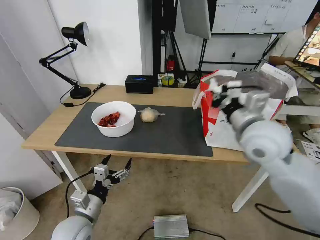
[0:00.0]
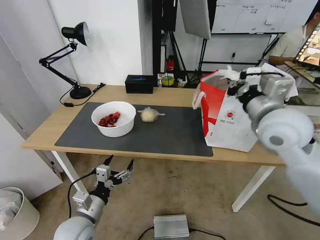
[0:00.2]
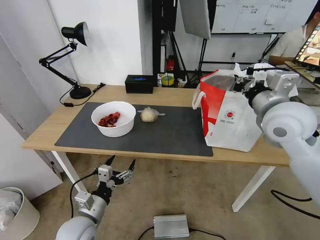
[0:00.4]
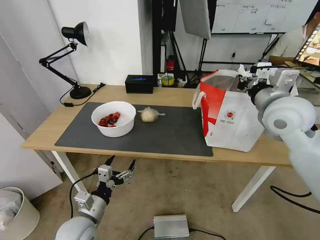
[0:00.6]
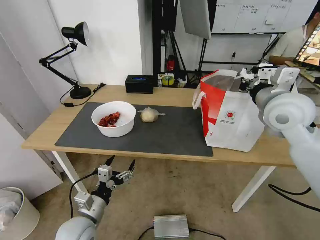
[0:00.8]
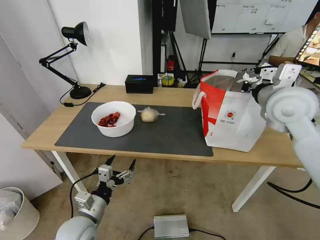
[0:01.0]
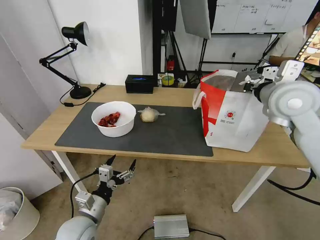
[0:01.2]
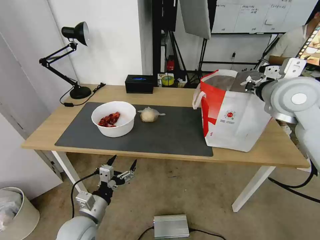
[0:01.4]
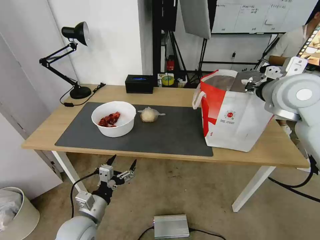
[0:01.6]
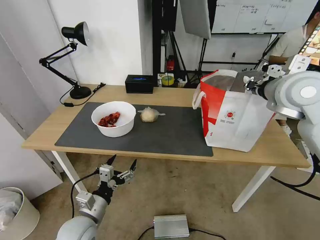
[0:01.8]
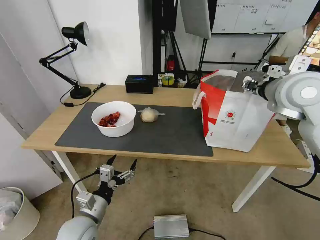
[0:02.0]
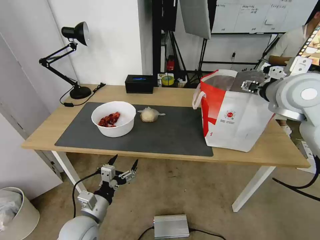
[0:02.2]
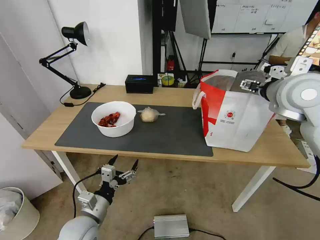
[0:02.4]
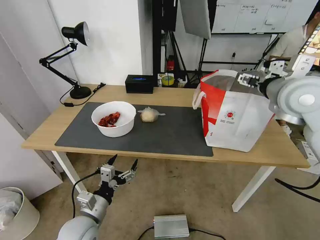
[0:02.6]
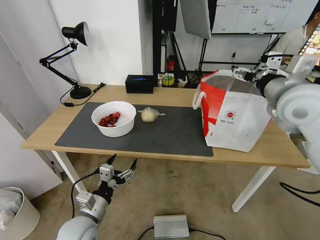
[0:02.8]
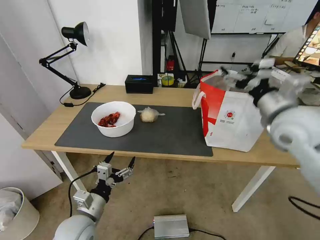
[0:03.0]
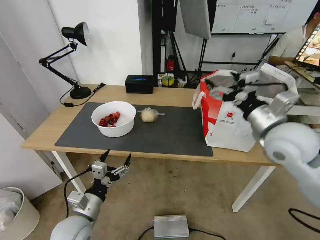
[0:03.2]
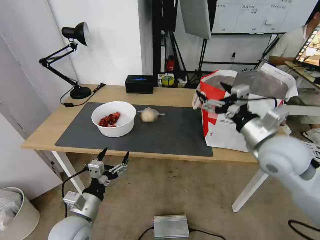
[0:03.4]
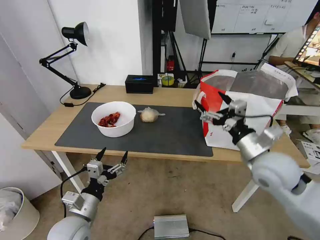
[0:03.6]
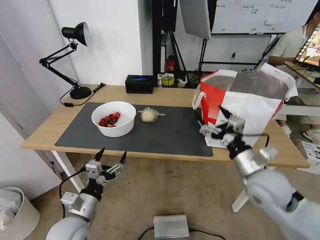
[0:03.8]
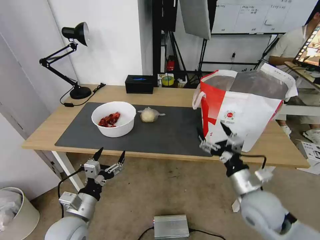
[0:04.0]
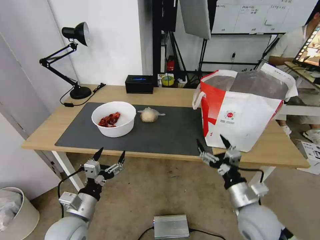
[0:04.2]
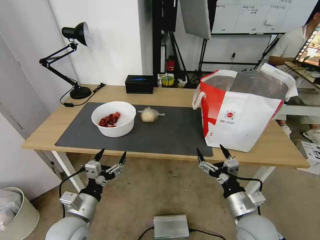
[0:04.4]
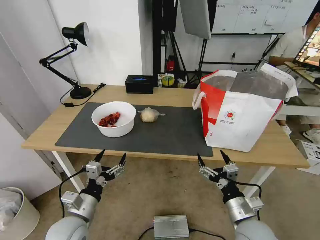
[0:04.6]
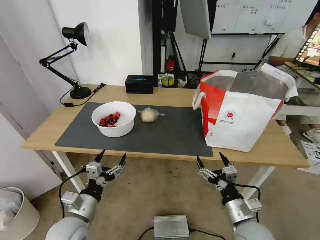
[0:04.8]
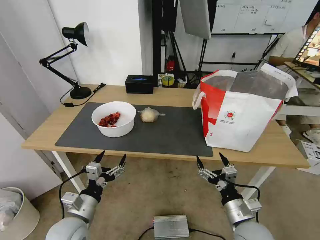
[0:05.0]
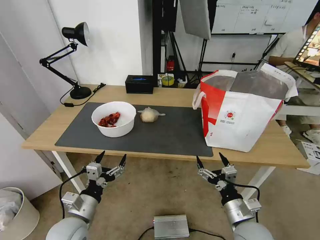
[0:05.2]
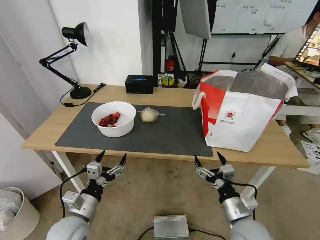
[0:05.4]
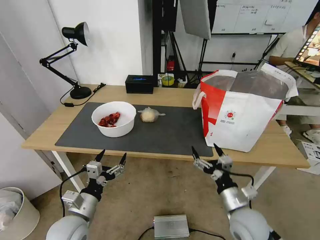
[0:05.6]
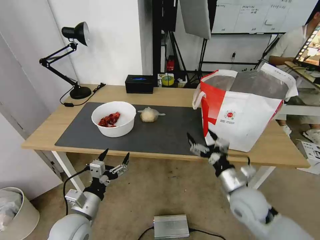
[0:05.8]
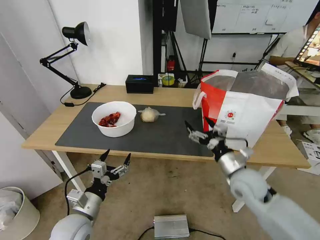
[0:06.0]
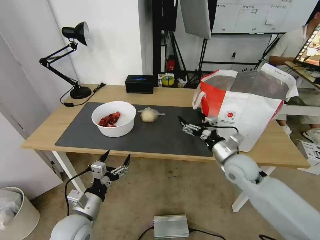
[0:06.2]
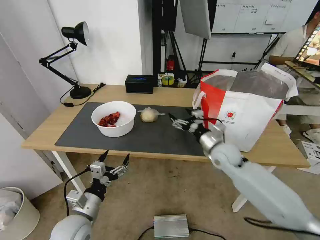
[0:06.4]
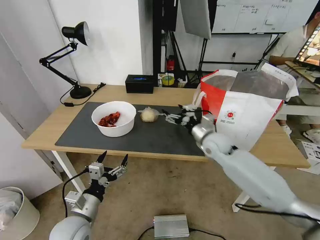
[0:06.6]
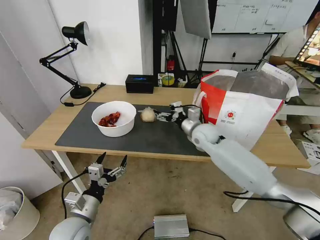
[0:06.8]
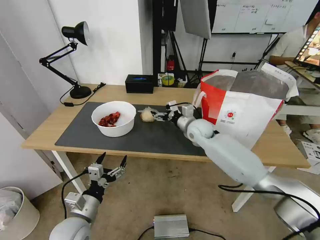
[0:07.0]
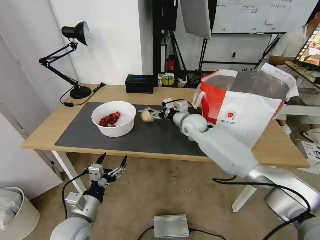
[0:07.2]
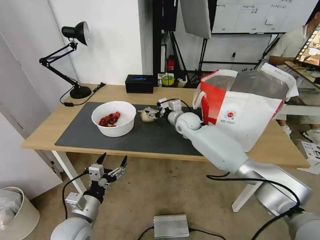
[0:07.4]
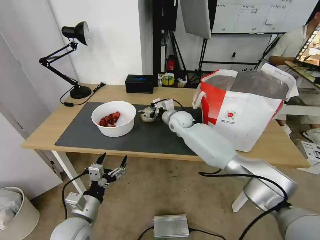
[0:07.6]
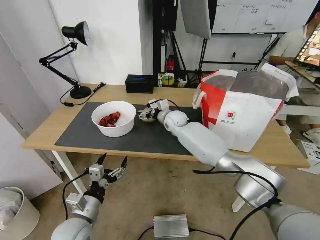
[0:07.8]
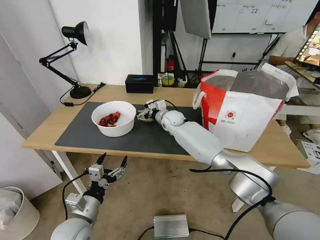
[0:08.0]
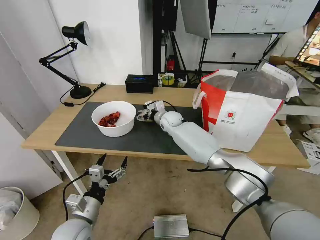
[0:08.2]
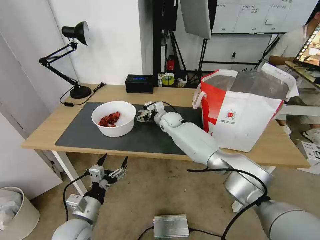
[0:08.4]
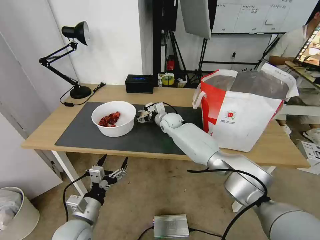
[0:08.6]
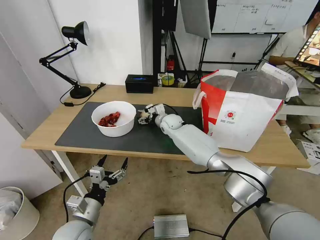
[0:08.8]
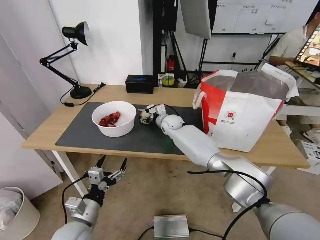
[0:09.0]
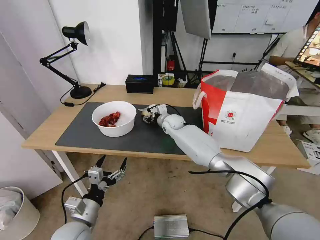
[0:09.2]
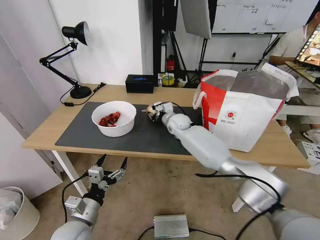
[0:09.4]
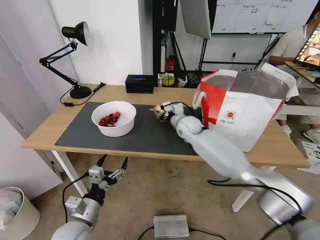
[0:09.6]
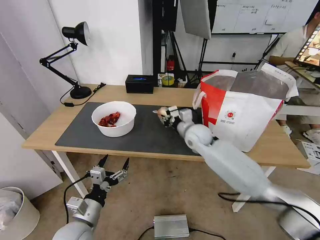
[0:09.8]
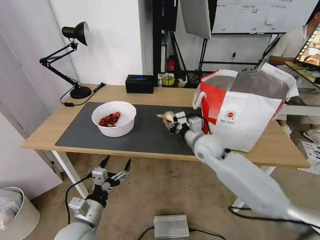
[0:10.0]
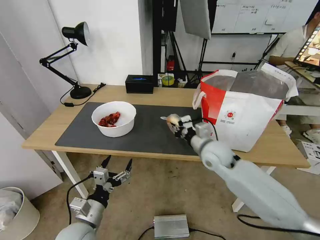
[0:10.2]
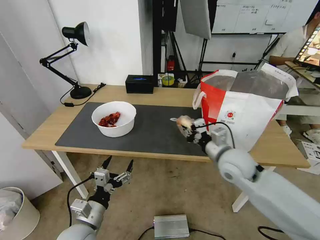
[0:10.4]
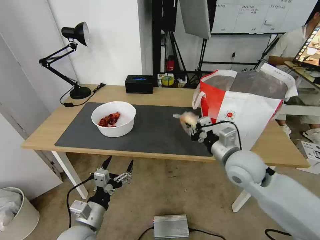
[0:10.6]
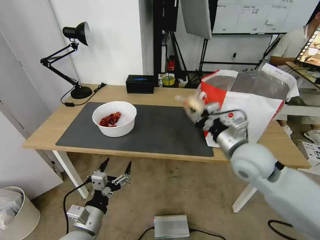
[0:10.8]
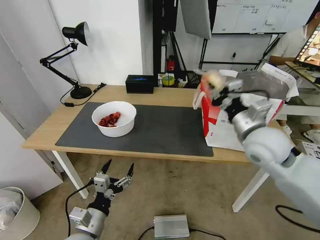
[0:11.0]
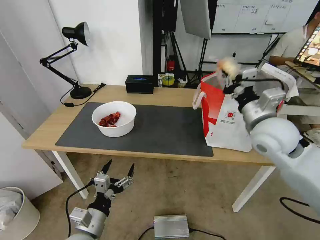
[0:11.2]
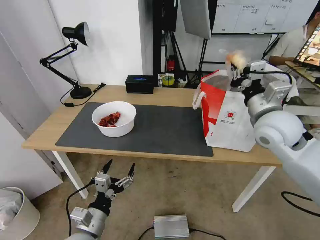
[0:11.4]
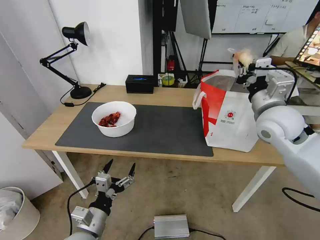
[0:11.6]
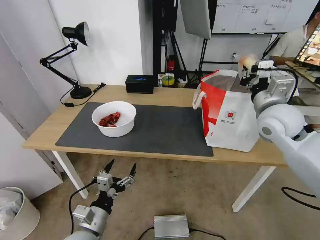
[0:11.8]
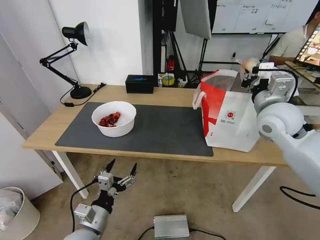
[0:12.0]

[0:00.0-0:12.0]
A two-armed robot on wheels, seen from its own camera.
Task of the whole recording: Pick up the trash from the table and place it into the takeout bag.
0:00.0 to 0:01.6: The right gripper shifts approximately 15 cm forward, to the right and upward.
0:01.6 to 0:03.0: The right gripper heads backward, covering about 5 cm, and opens up.
0:03.0 to 0:04.4: The right gripper heads downward and backward, covering approximately 30 cm.
0:04.4 to 0:06.0: The right gripper is displaced forward and upward by some 15 cm.
0:06.0 to 0:07.6: The right gripper is displaced forward and to the left by some 30 cm.
0:07.6 to 0:09.0: The right gripper ends up approximately 5 cm from where it was.
0:09.0 to 0:10.4: The right gripper travels backward and to the right by approximately 30 cm, and closes up.
0:10.4 to 0:12.0: The right gripper goes some 15 cm upward, to the right and forward.

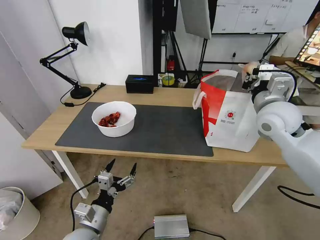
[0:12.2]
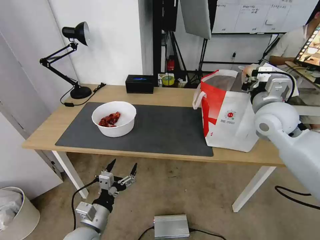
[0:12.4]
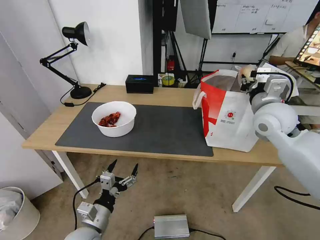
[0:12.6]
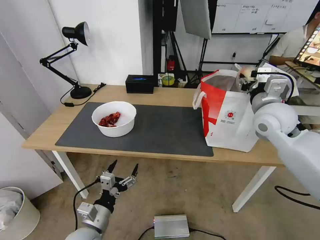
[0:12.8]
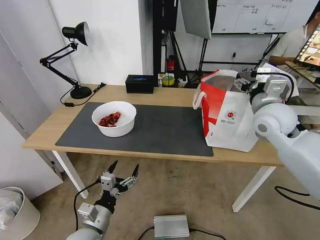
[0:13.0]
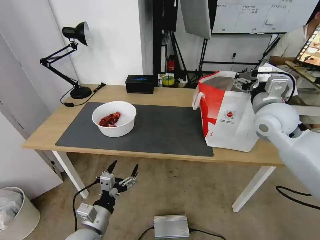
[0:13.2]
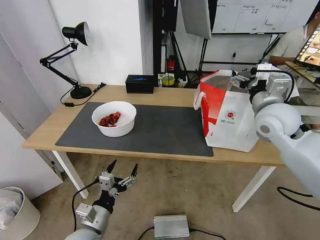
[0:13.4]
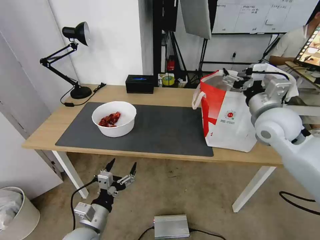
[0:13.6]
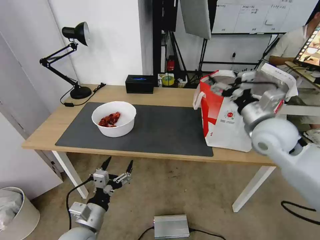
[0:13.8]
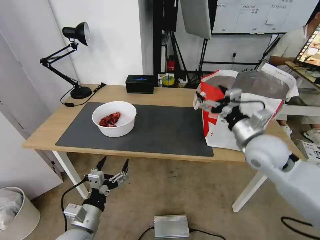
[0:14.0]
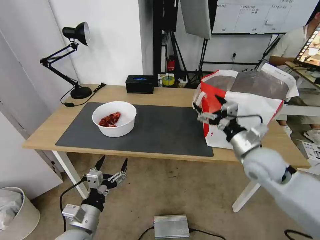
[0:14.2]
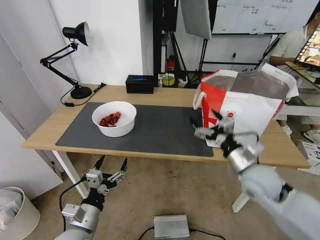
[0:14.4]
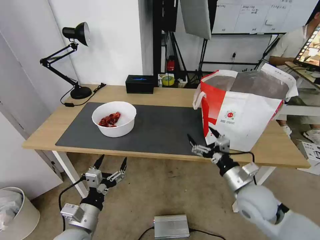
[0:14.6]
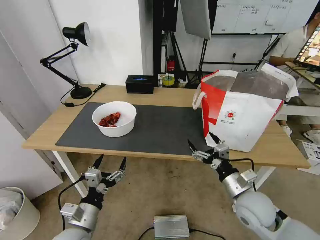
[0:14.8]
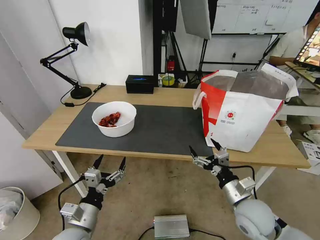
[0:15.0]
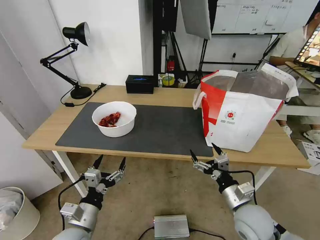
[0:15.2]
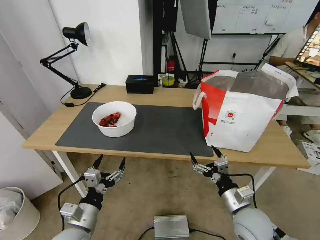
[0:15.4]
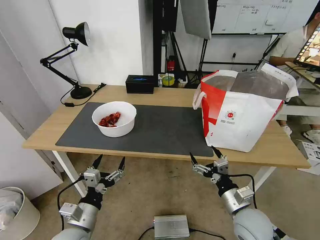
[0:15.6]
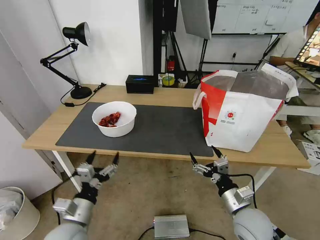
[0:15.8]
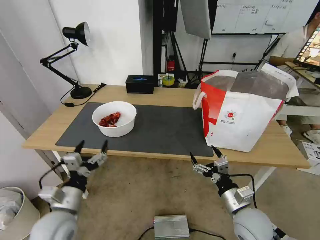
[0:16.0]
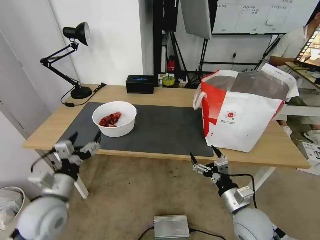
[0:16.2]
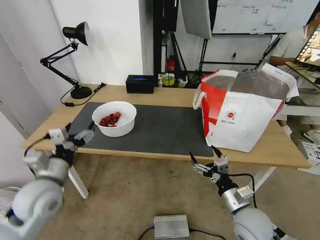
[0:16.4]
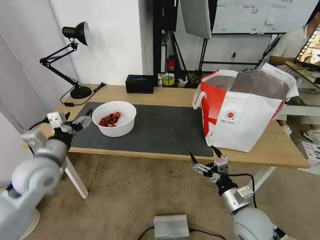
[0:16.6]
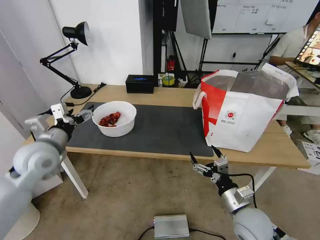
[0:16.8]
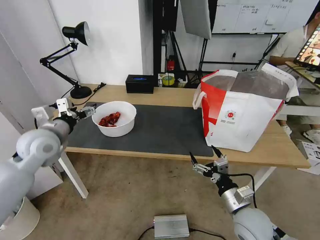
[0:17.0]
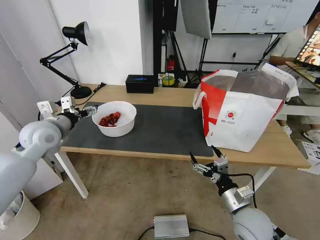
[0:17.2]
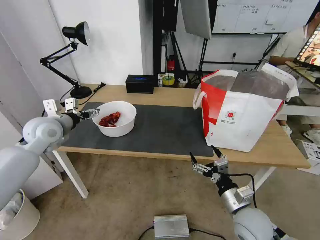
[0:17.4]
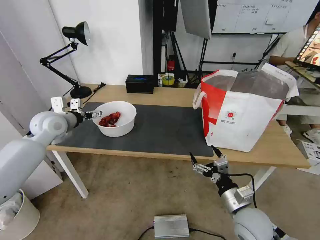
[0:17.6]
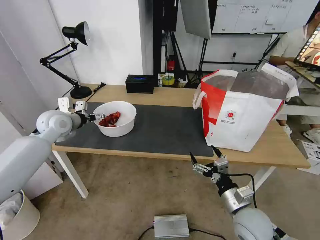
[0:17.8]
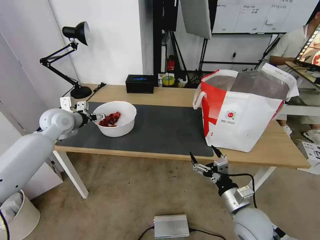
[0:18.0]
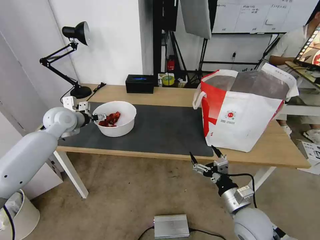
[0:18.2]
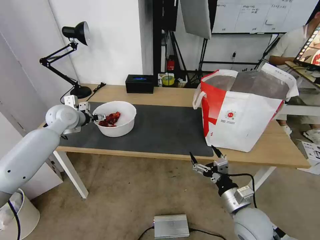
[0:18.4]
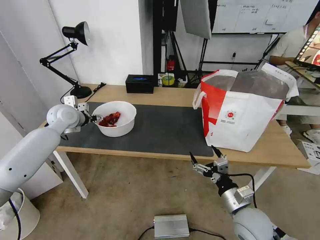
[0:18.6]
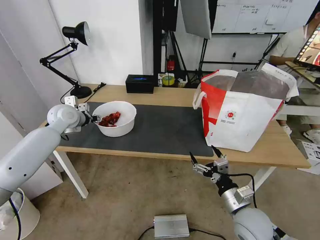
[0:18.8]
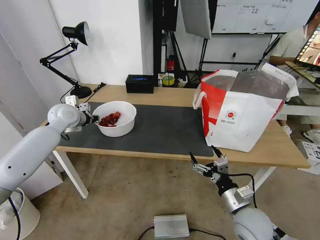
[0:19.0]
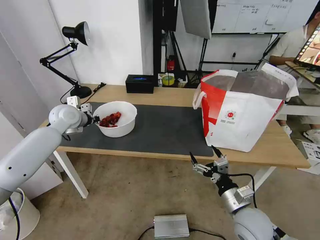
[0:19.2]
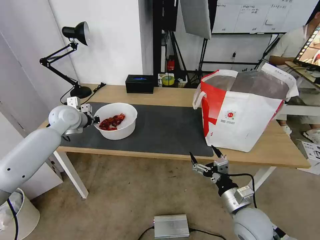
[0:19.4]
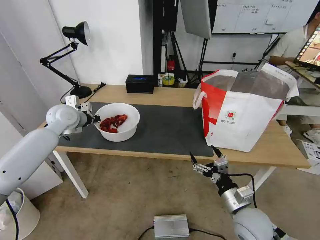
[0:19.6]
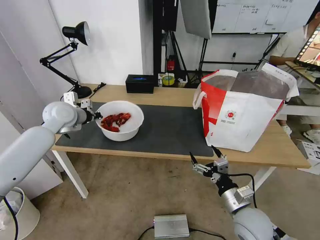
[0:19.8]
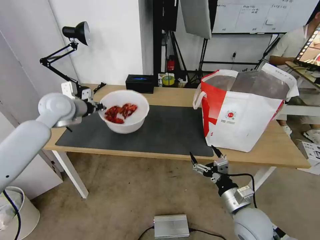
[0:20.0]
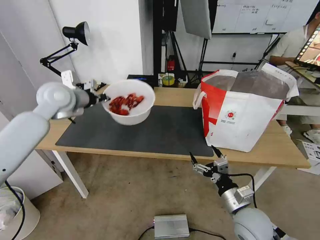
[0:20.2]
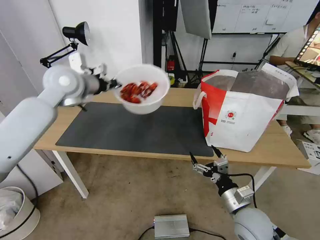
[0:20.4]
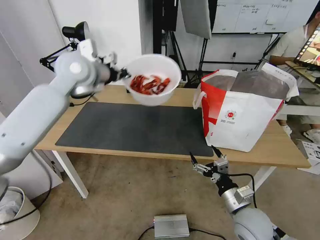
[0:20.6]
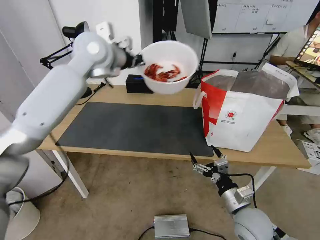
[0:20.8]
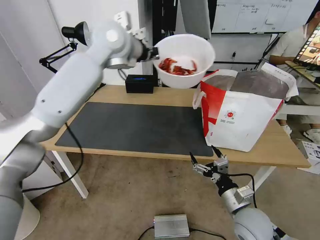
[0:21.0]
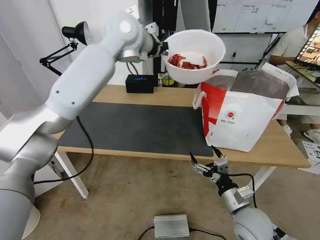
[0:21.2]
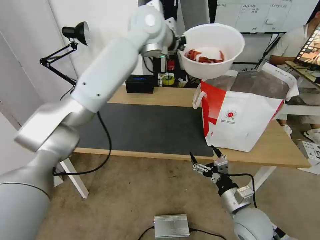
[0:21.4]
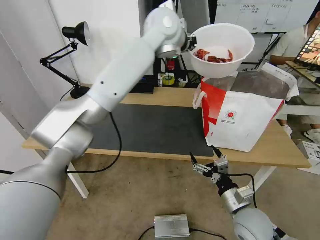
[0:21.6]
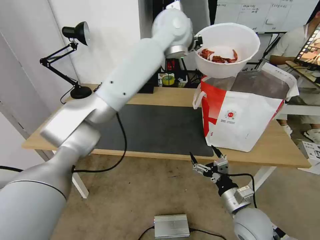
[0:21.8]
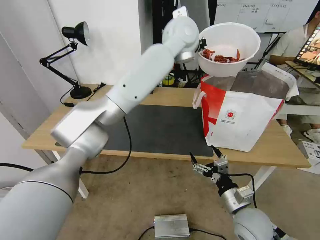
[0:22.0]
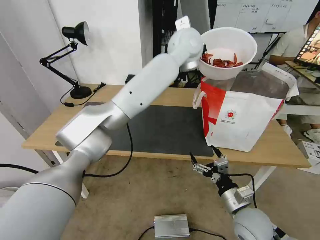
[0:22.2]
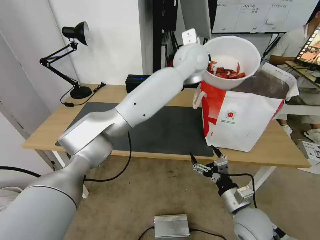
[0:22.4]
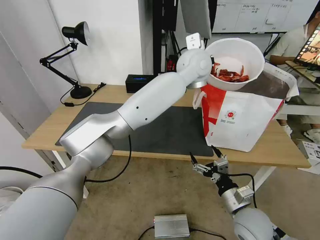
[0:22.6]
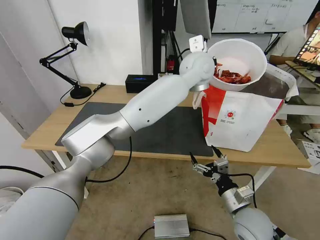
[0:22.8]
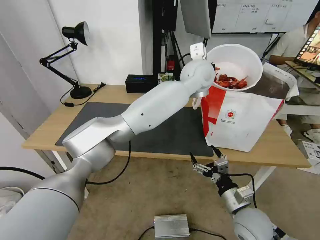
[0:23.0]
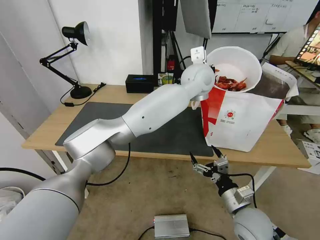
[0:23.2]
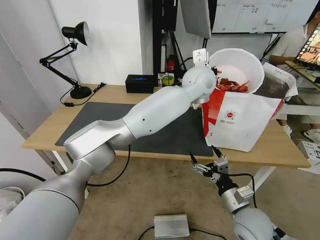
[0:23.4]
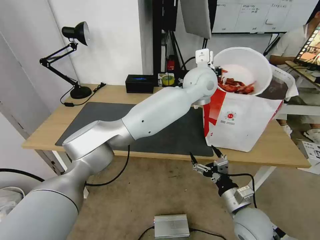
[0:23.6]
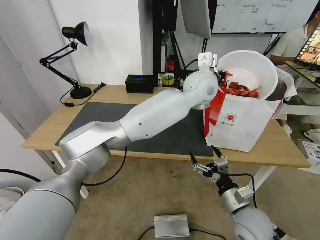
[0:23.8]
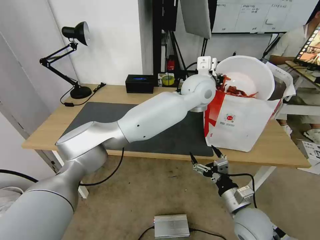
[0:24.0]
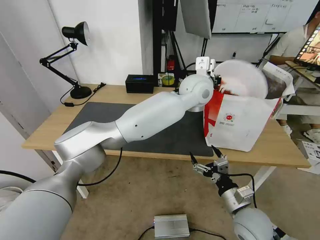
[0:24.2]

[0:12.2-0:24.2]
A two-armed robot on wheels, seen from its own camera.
Task of the whole recording: Pick up the trash from the table and place it into the takeout bag.
0:12.2 to 0:13.8: The right gripper opens.
0:13.8 to 0:15.2: The right gripper is displaced downward and backward by about 25 cm.
0:15.2 to 0:16.6: The left gripper goes roughly 20 cm upward, forward and to the left.
0:16.6 to 0:18.2: The left gripper heads forward, covering roughly 20 cm.
0:18.2 to 0:19.8: The left gripper closes up.
0:19.8 to 0:21.2: The left gripper goes about 30 cm to the right and upward.
0:21.2 to 0:22.6: The left gripper is displaced to the right and downward by roughly 20 cm.
0:22.6 to 0:24.2: The left gripper is displaced downward by roughly 5 cm.
